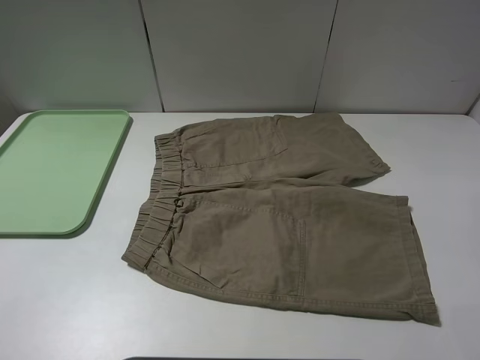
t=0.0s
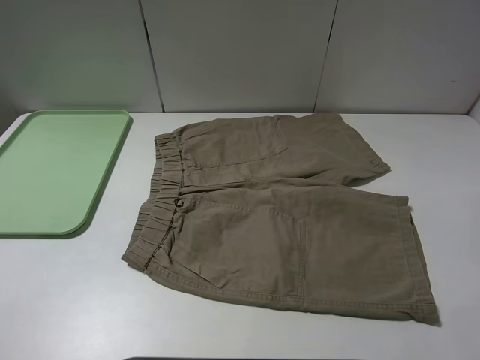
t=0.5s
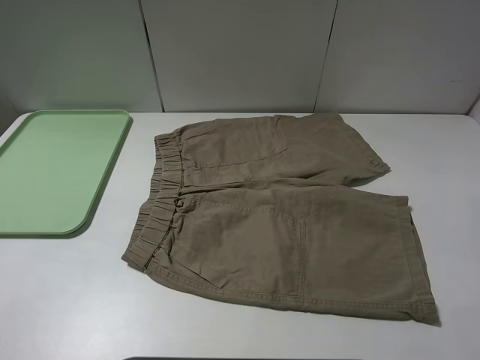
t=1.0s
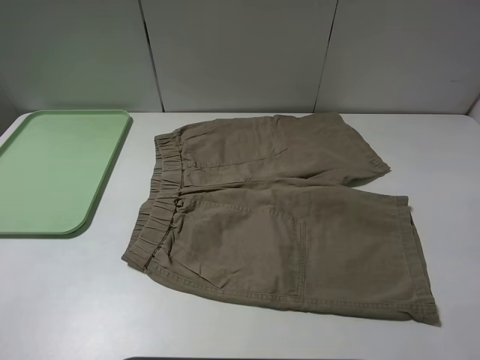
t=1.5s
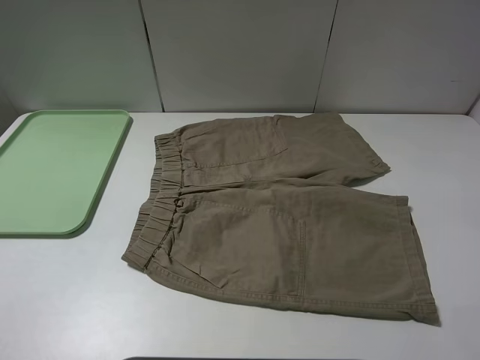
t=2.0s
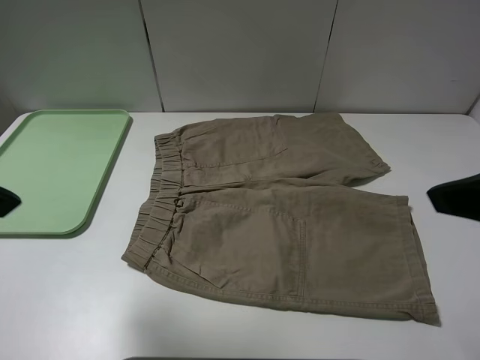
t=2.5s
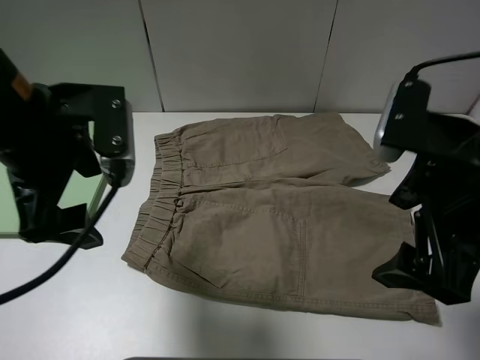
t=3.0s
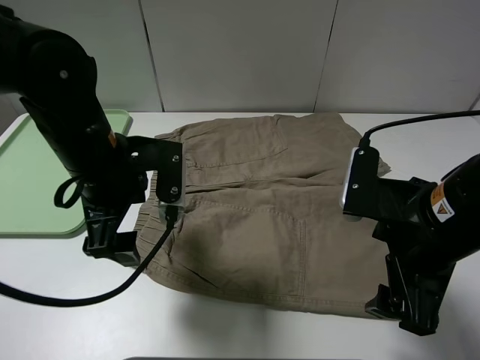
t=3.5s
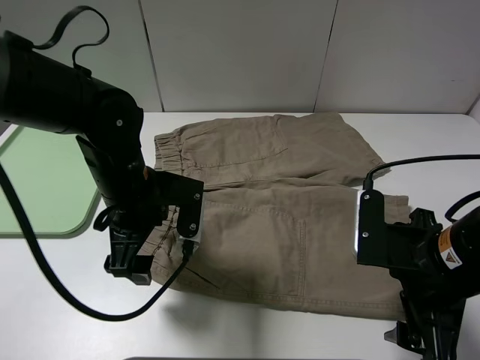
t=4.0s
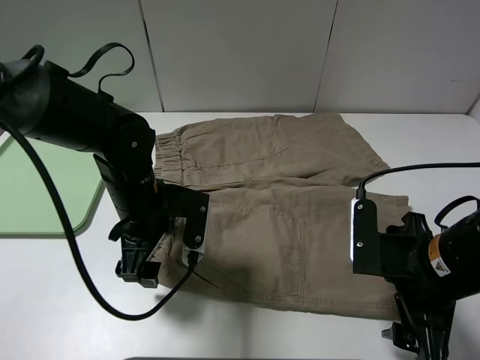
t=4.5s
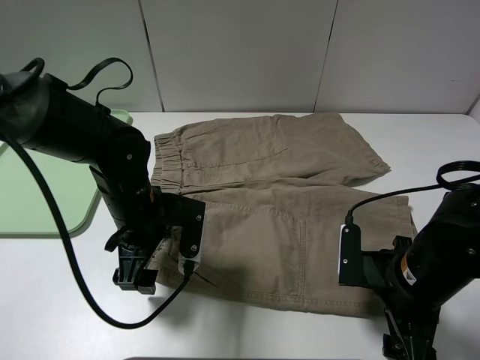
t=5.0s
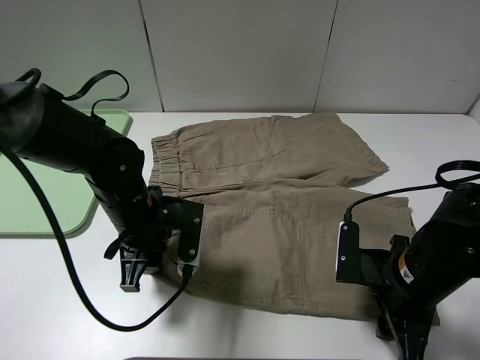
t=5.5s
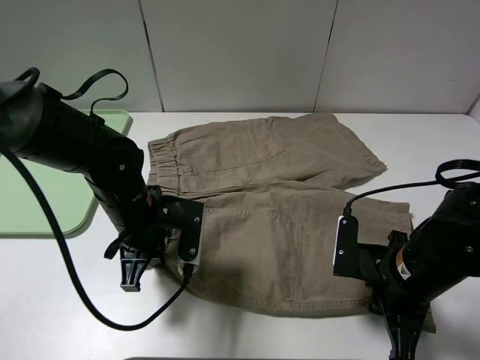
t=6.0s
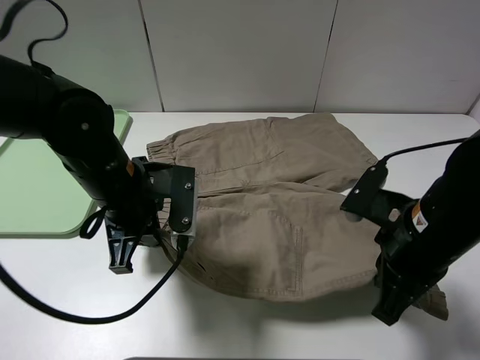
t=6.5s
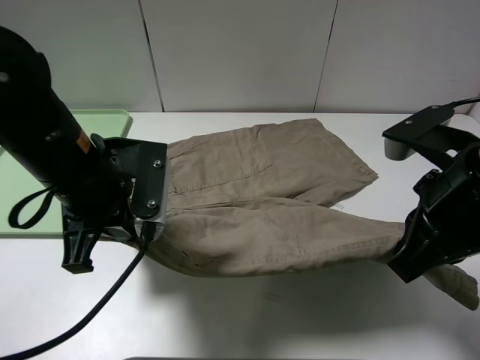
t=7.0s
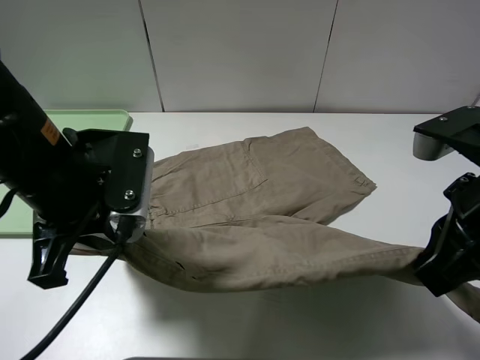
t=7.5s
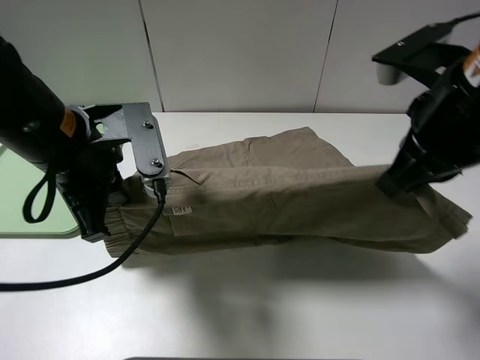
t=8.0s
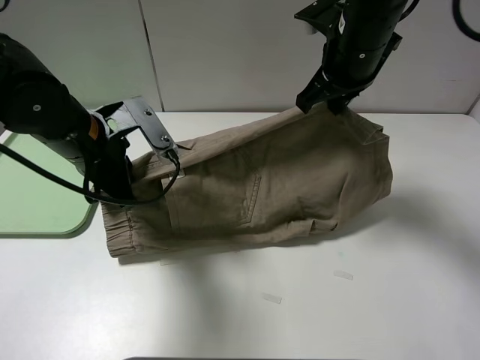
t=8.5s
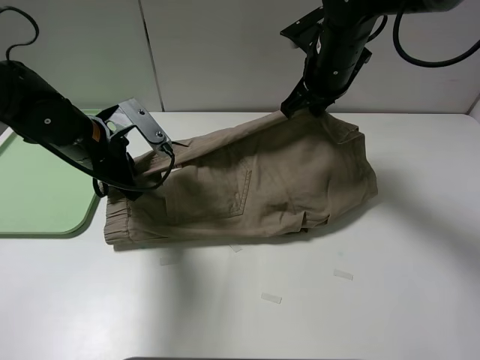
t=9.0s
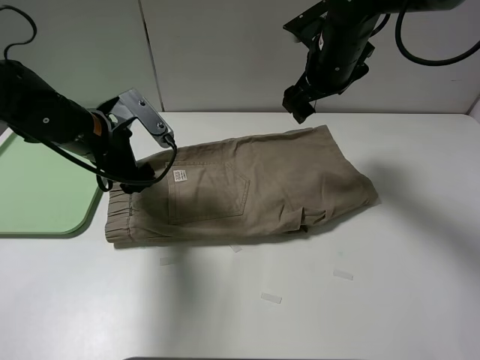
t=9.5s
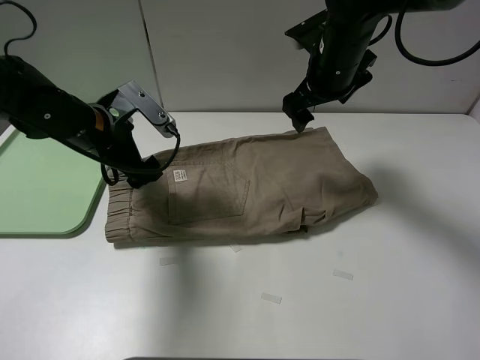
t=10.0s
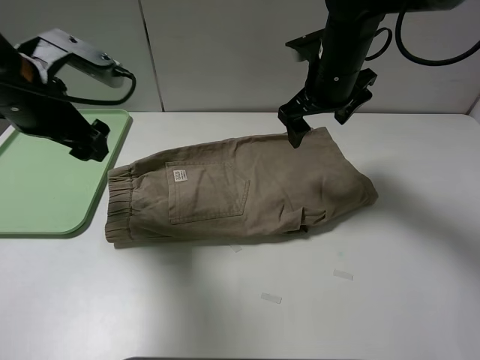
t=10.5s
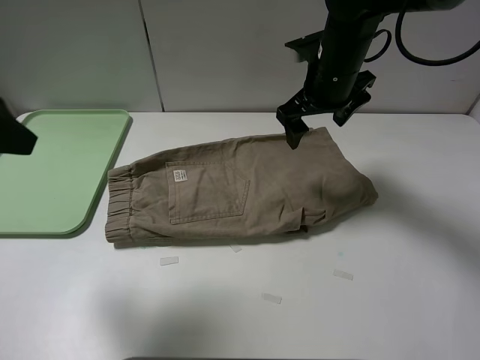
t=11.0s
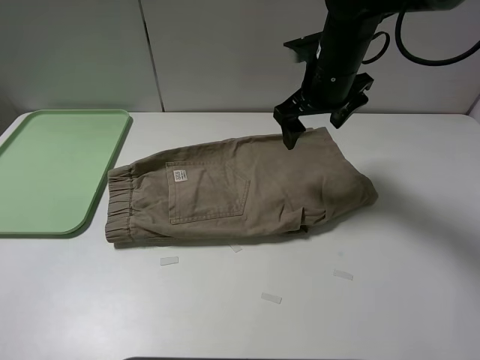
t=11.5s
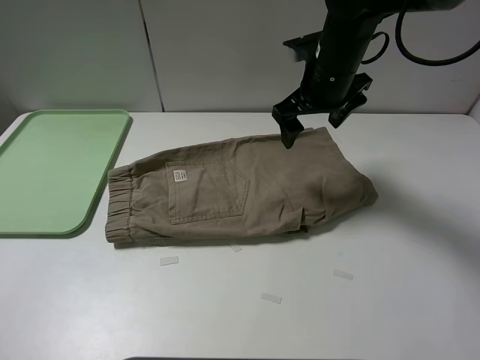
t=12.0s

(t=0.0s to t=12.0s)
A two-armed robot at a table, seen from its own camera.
Task of the whole recording: fold the khaki jeans in half with two grippers, then fold them in half again, and use the left claw to place the folded fold khaki jeans on the tray.
Step, t=0.0s - t=5.5s: Grasp the khaki trousers with the left gripper.
Step, t=6.5s - t=9.0s: Fold the khaki trousers upwards with the left gripper.
t=2.0s - t=4.0s: The left gripper moves forward, downward and to the right, roughly 35 cm. The right gripper is displaced downward, to the left and forward by roughly 20 cm.
t=4.0s - t=6.0s: The right gripper travels downward by roughly 5 cm, and closes its fingers, while the left gripper closes its fingers.
t=6.0s - t=8.0s: The grippers both shift upward by about 15 cm.
t=8.0s - t=10.0s: The left gripper is displaced forward and downward by approximately 10 cm, and opens up, while the right gripper travels forward by roughly 20 cm, and opens.
t=10.0s - t=12.0s: The left gripper goes some 30 cm backward.

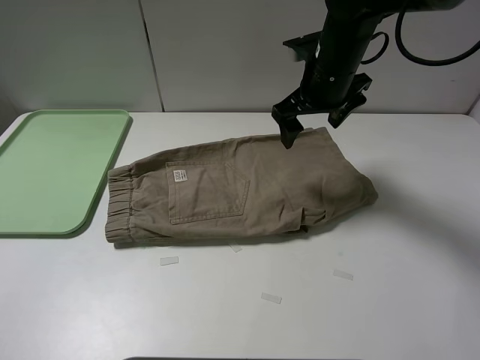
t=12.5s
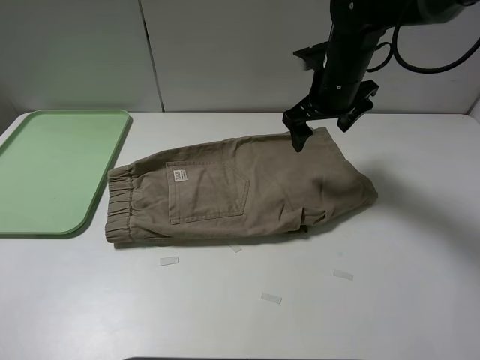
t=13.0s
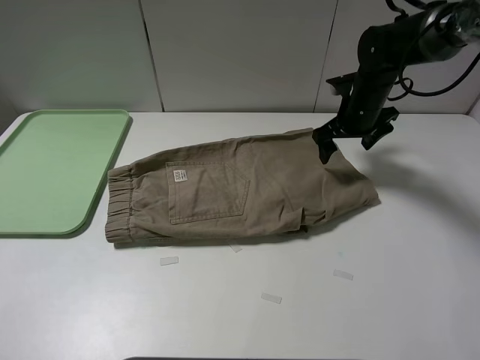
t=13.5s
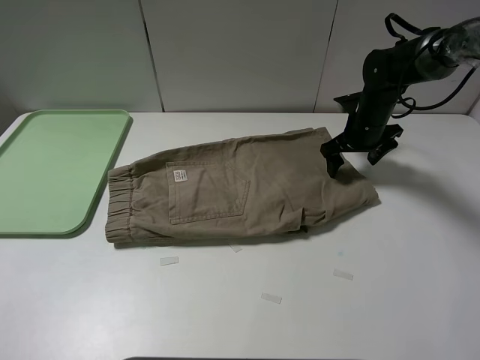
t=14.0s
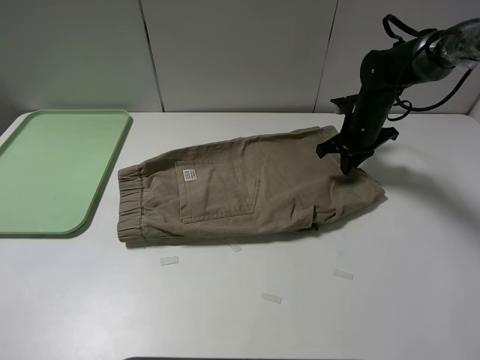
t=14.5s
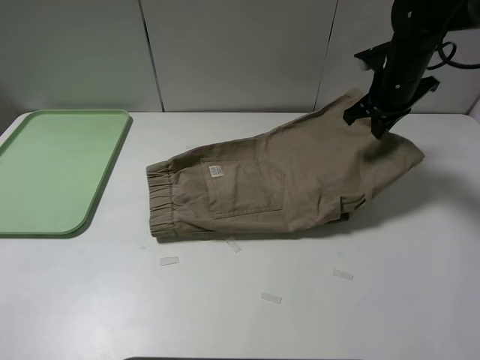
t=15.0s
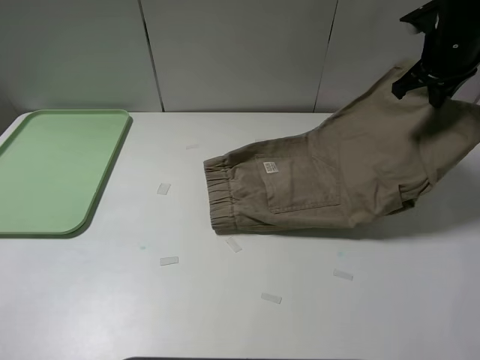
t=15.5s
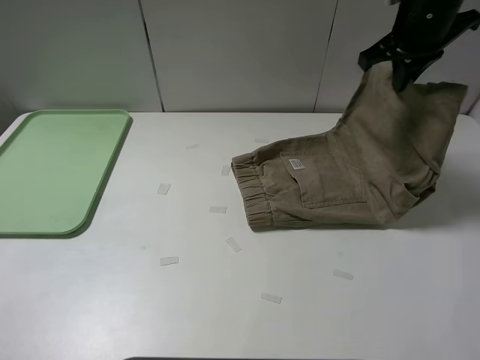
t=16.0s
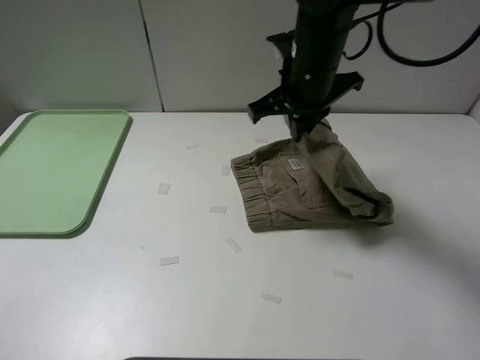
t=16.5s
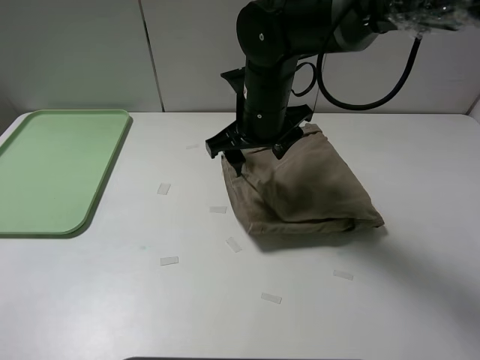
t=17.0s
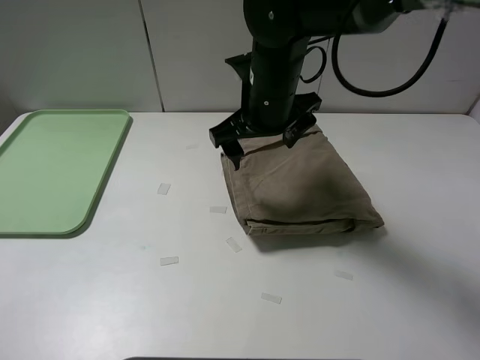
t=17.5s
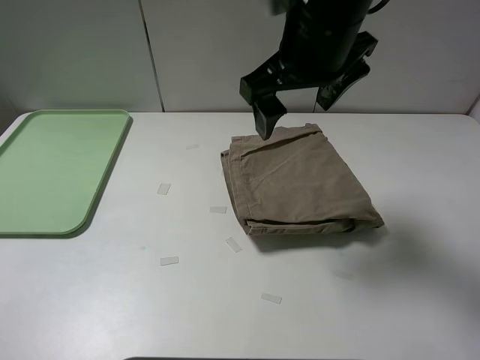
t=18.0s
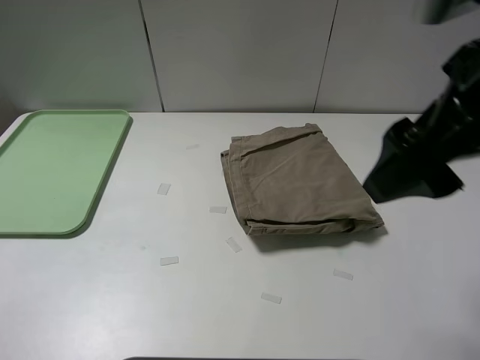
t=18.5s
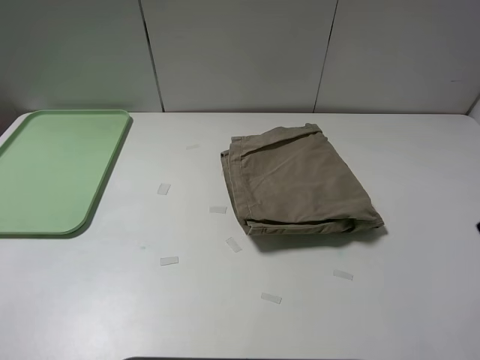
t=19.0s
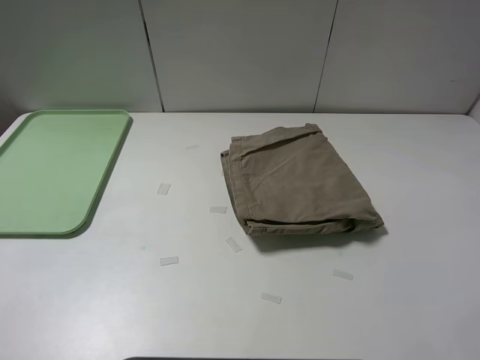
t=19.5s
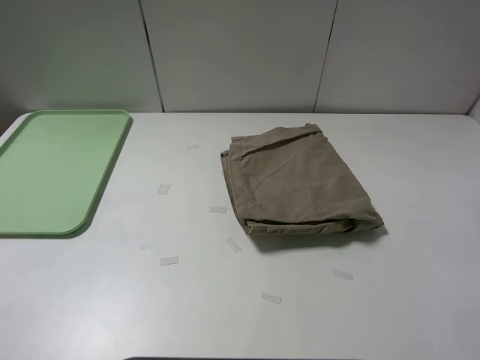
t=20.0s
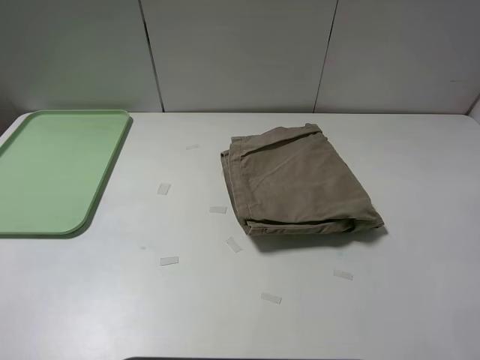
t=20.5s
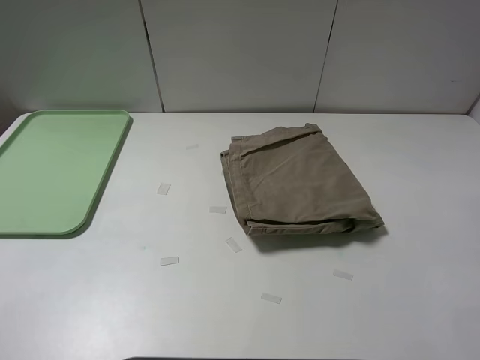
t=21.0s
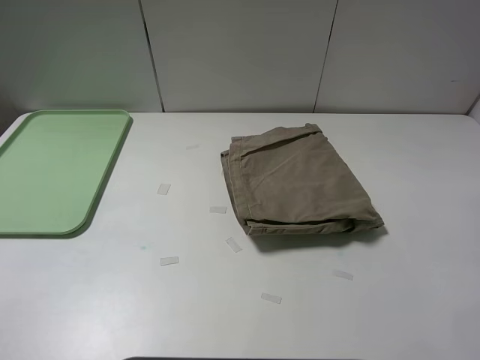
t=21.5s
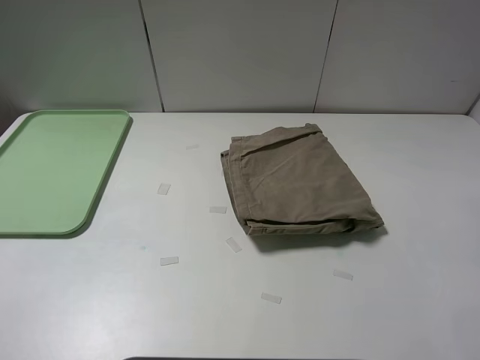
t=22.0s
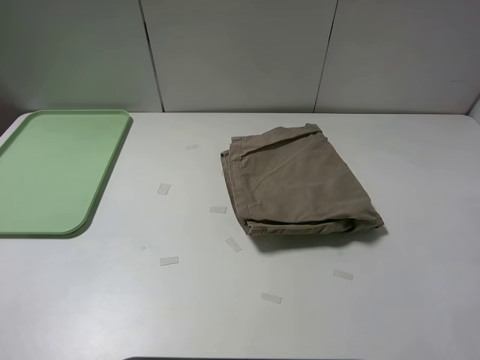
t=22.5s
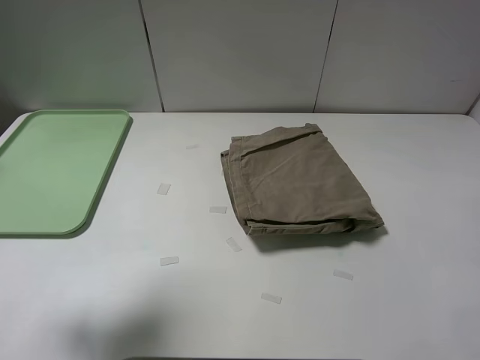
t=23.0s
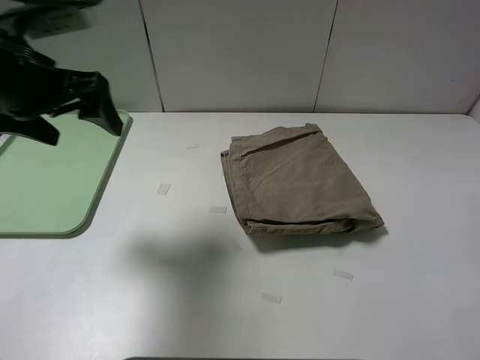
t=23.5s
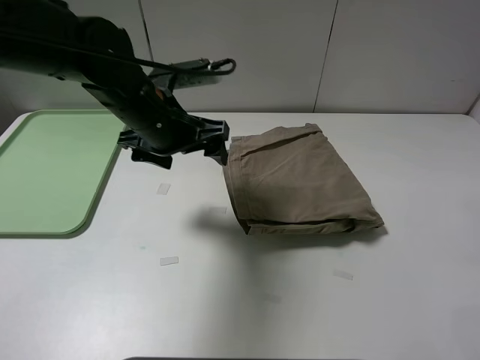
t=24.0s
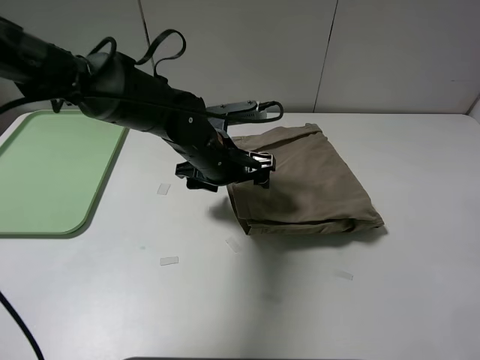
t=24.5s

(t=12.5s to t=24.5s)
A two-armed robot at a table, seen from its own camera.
Task of the whole recording: fold the khaki jeans in half with two grippers, then fold them in half again, and use the left claw to place the folded fold khaki jeans on the tray.
Step, t=14.5s - t=17.0s: Fold the khaki trousers from right to left with the right gripper.
t=12.5s - t=14.5s: The right gripper moves downward, to the right and forward, roughly 20 cm, and closes up.
t=14.5s - t=16.5s: The right gripper shifts approximately 20 cm to the left, upward and backward.
t=16.5s - t=18.5s: The right gripper shifts about 25 cm backward, upward and to the right, and opens up.
t=18.5s - t=20.5s: The right gripper shifts about 20 cm backward and to the right.
t=22.5s - t=24.5s: The left gripper is displaced forward, to the right and downward by about 40 cm.

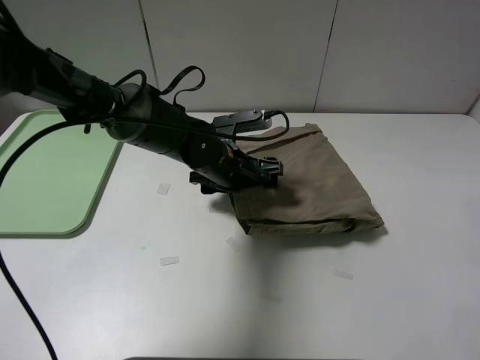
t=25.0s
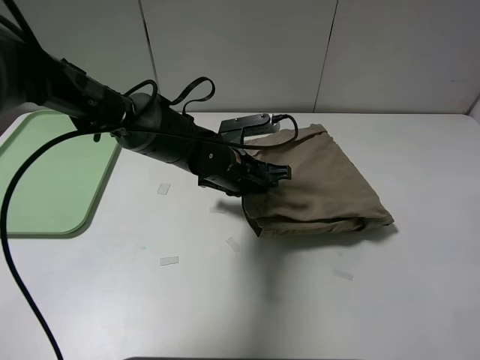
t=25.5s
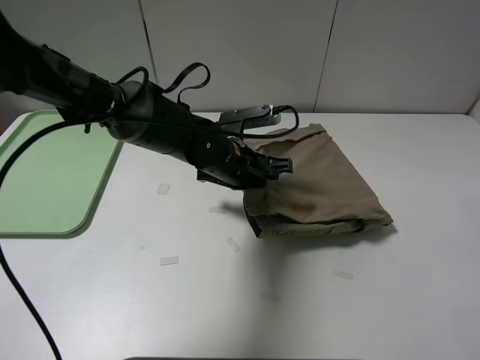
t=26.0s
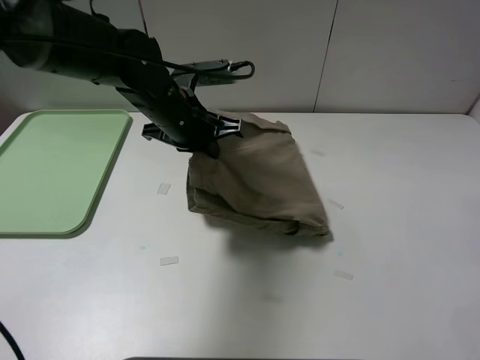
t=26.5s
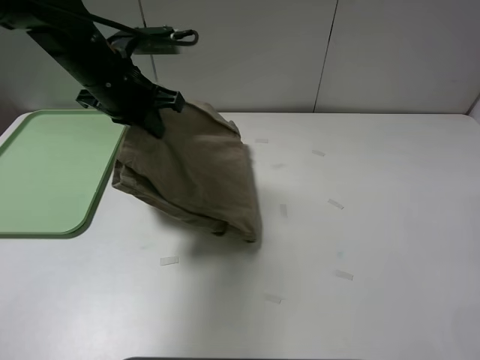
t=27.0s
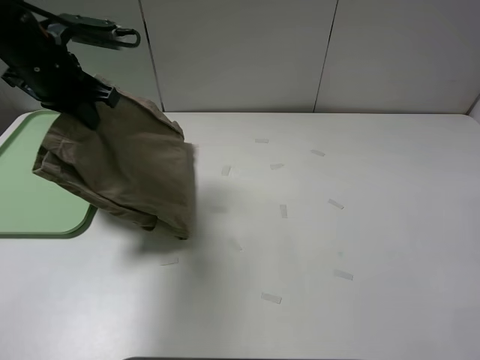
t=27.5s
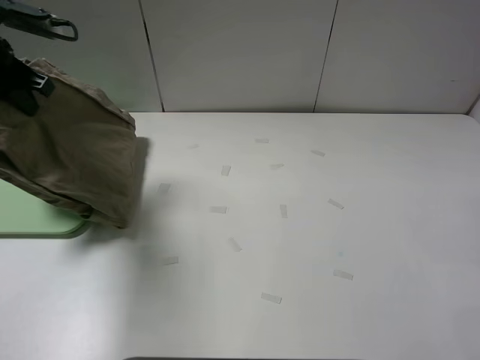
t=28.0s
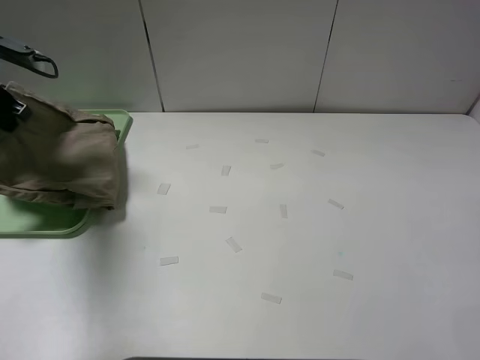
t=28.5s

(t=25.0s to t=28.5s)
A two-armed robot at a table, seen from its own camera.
Task of the whole recording: fold the khaki jeans in half with two grippers, then fold them in half again, and use the left claw to place the folded fold khaki jeans on the tray.
t=25.0s - t=27.0s: The left gripper heads to the left and upward, covering about 20 cm, and closes up.
t=27.0s - t=28.5s: The left gripper shifts some 20 cm to the left.
